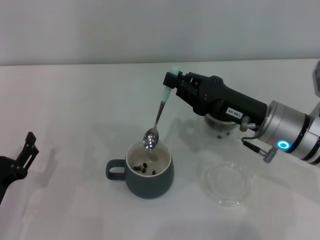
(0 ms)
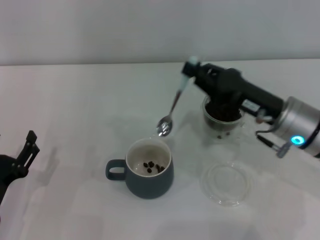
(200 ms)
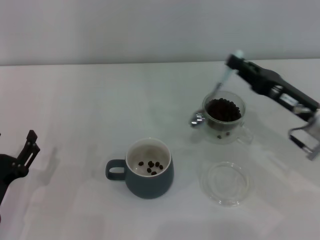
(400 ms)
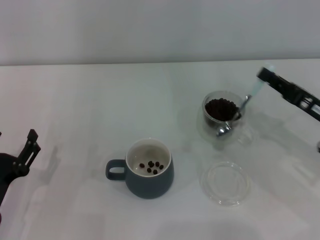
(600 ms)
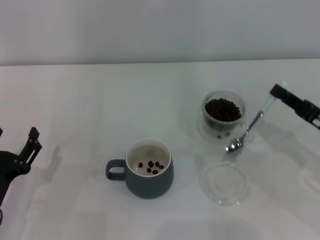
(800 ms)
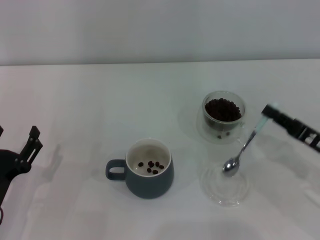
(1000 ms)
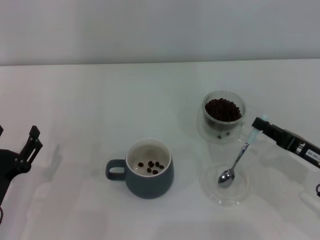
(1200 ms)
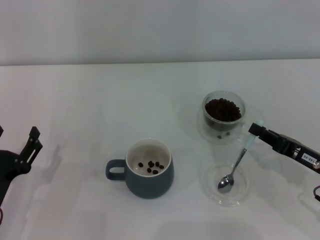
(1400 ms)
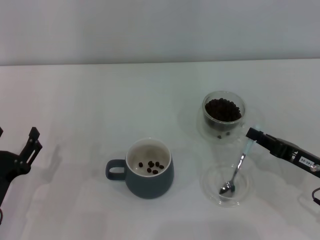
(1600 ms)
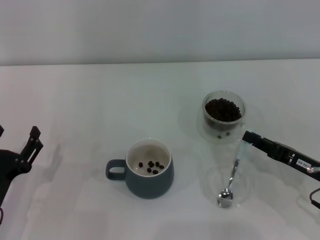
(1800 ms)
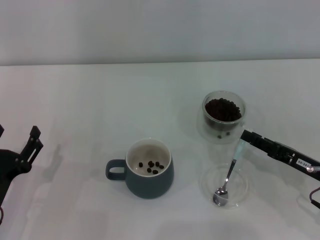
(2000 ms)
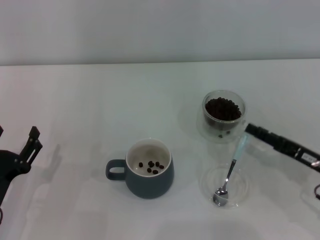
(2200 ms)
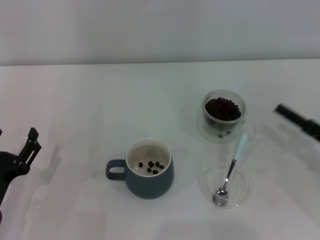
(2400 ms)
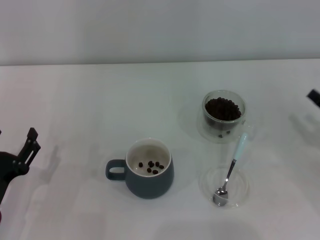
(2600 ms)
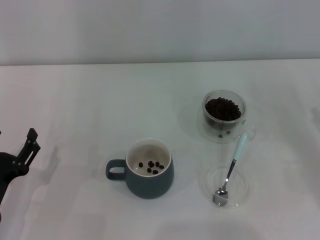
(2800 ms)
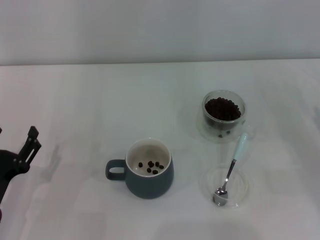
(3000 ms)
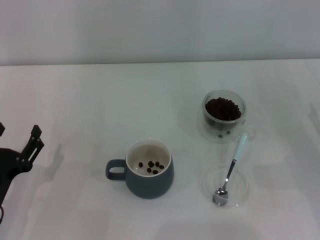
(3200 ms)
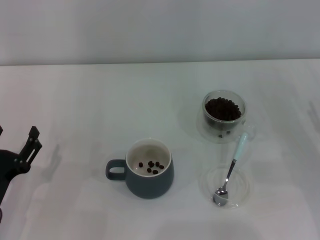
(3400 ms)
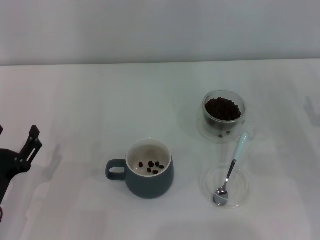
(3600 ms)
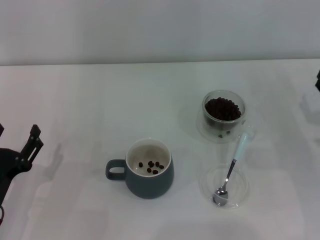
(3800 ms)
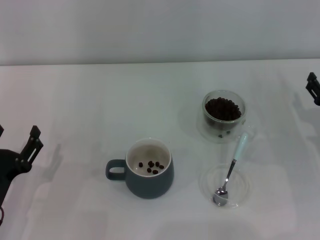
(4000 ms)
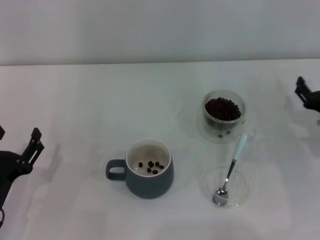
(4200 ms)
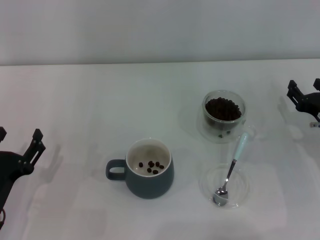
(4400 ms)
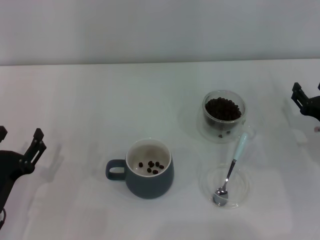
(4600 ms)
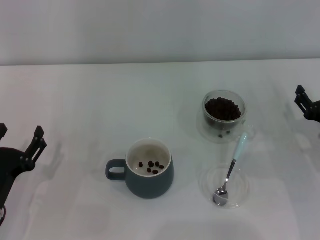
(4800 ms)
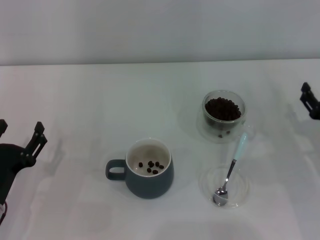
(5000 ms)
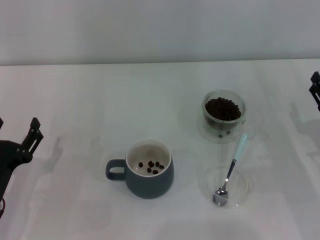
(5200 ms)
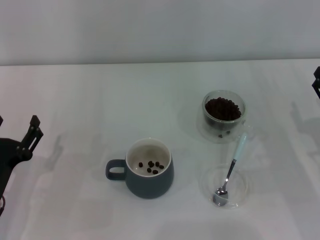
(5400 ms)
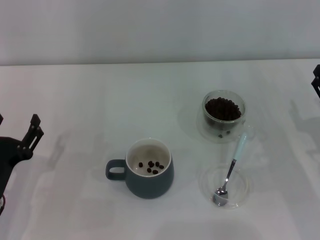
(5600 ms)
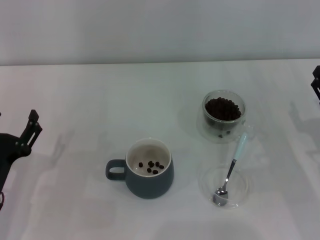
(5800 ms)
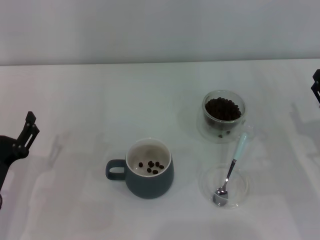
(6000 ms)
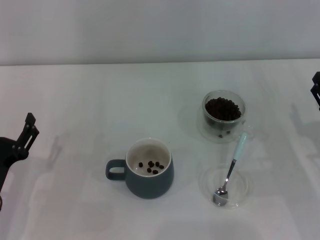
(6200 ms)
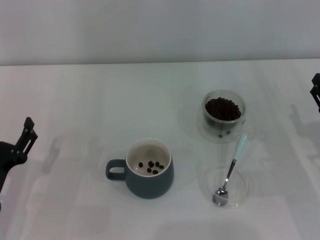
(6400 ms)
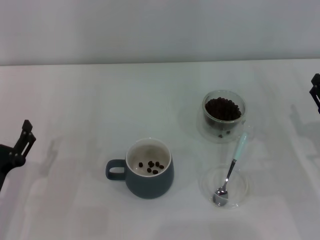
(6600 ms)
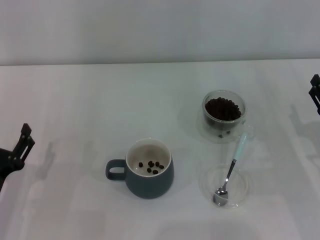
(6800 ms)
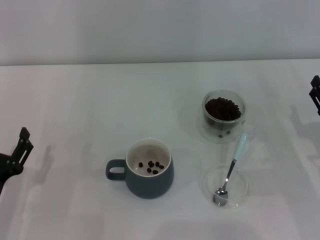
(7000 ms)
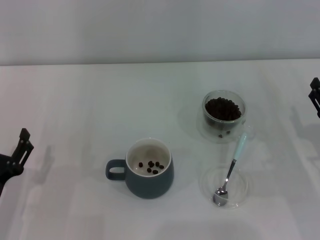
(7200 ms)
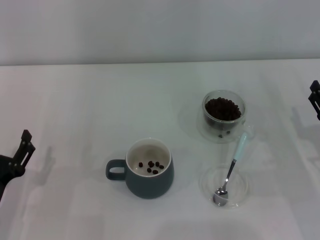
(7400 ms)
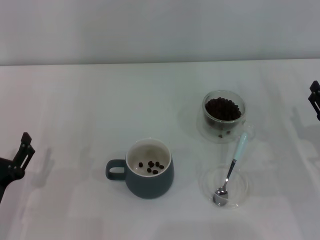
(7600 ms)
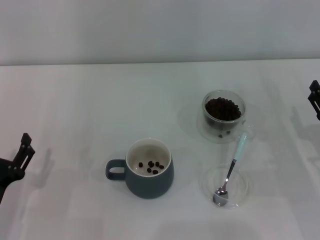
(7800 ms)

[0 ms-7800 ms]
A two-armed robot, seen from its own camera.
Task of the whole recording: Use a blue spoon to take out the coffee beans from the glass and pour them into the gray cup.
Step, 200 ms to 2200 ms: Place the spoon back in its original place with the right gripper.
0 ms to 1600 ms: The right gripper heads to the right, downward and backward, covering some 15 cm.
1600 ms to 3200 ms: The right gripper goes approximately 5 cm to the right, and opens its fingers.
3200 ms to 4600 ms: The right gripper moves roughly 5 cm.
4600 ms to 7800 ms: The grippers move only a little.
